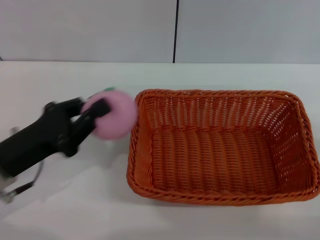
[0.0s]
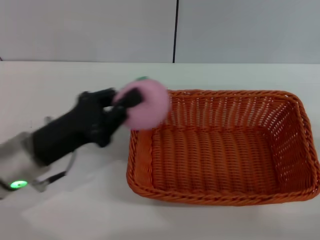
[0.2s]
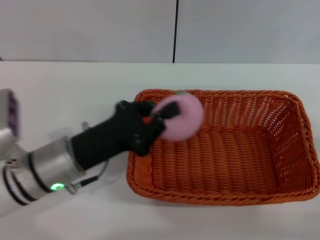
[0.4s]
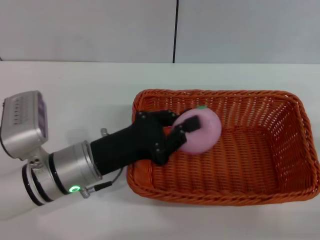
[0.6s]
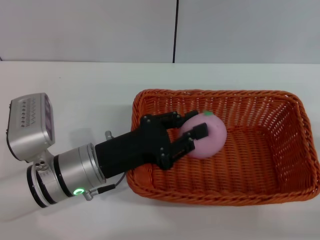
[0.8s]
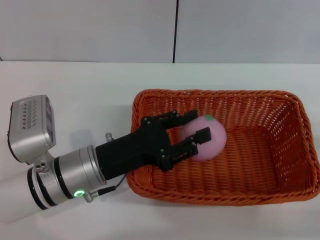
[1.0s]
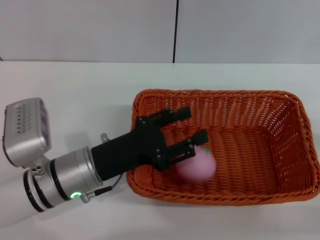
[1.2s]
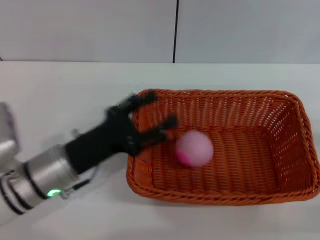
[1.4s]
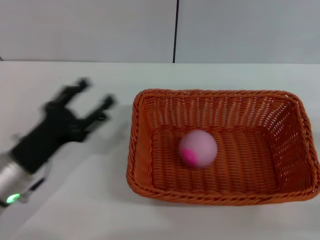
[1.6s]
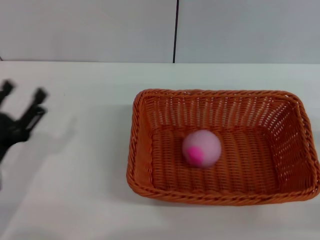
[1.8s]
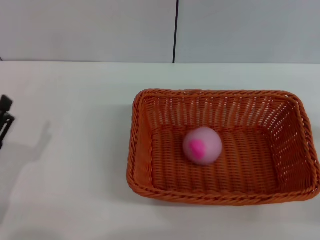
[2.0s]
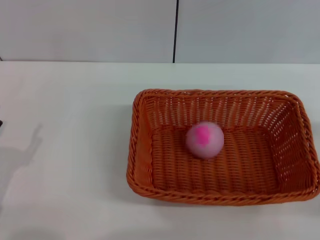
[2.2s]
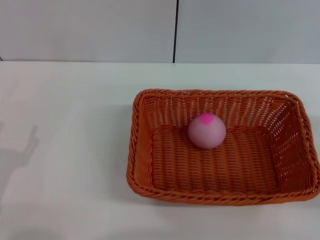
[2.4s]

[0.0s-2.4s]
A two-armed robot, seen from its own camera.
Step, 0.0s to 1.2s: Place the peach into the basket with the left gripper.
0.0s to 1.2s: The left gripper shifts some 10 cm to the right, and opens.
1.2s to 2.4s: The left gripper shifts roughly 20 cm to the left and backward, and opens up.
